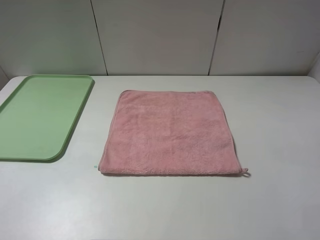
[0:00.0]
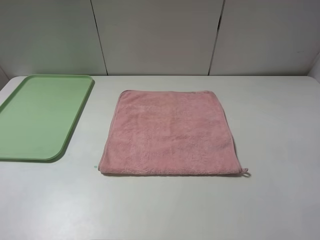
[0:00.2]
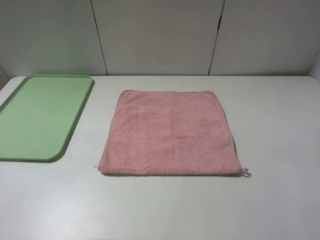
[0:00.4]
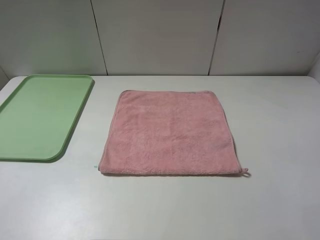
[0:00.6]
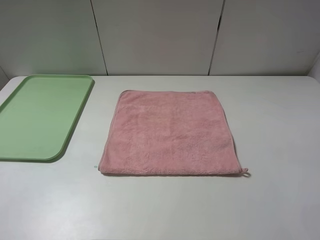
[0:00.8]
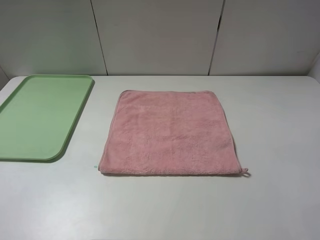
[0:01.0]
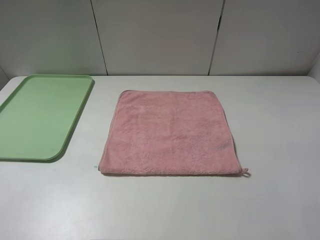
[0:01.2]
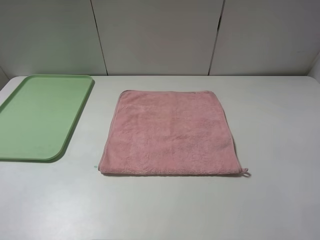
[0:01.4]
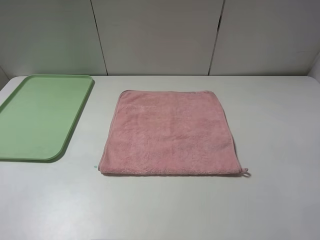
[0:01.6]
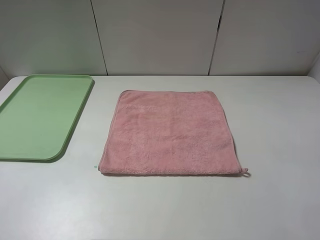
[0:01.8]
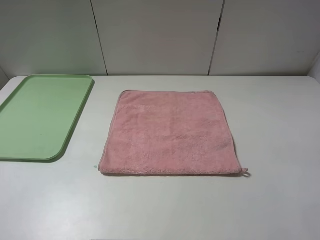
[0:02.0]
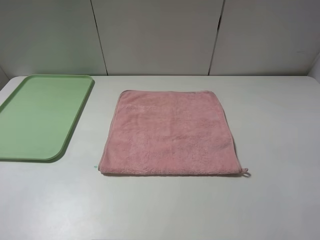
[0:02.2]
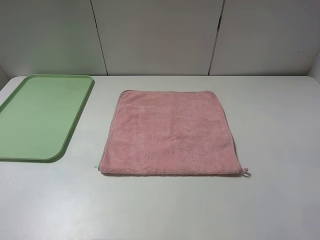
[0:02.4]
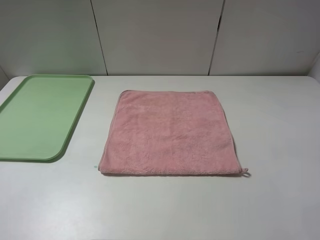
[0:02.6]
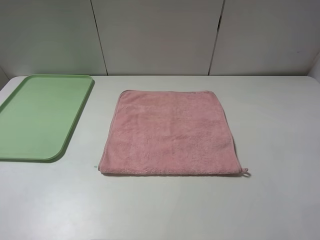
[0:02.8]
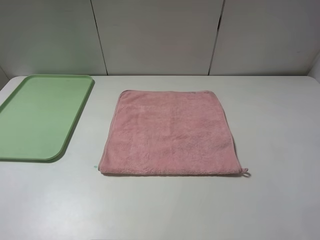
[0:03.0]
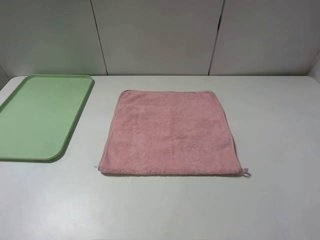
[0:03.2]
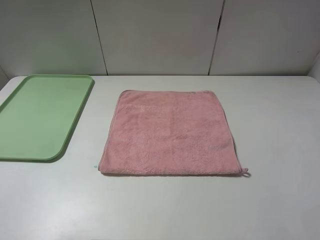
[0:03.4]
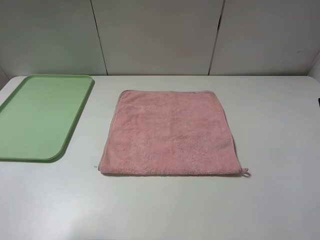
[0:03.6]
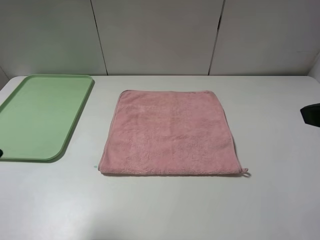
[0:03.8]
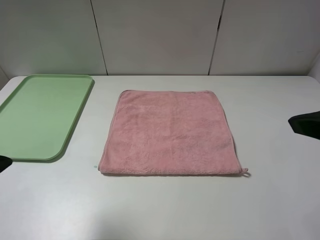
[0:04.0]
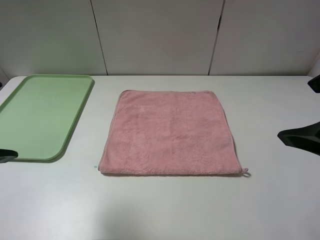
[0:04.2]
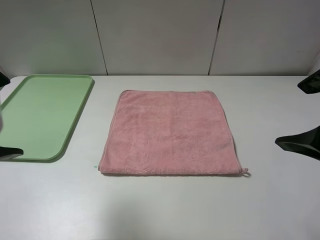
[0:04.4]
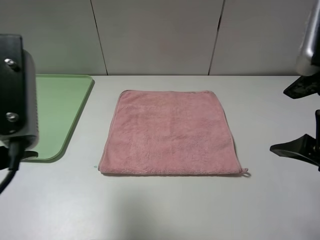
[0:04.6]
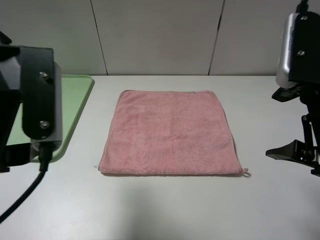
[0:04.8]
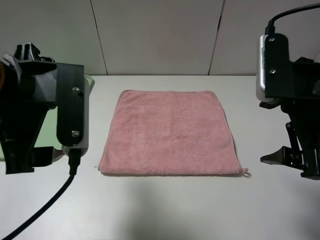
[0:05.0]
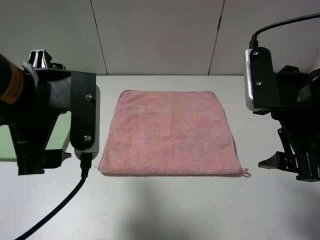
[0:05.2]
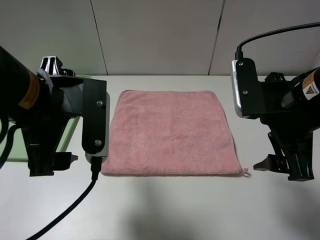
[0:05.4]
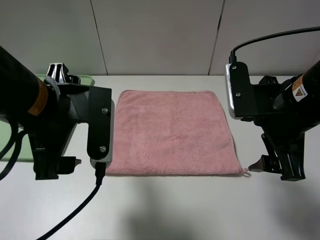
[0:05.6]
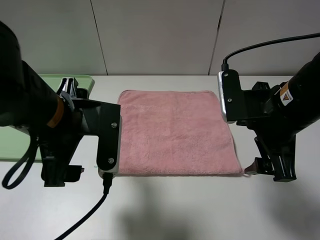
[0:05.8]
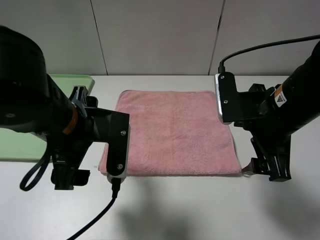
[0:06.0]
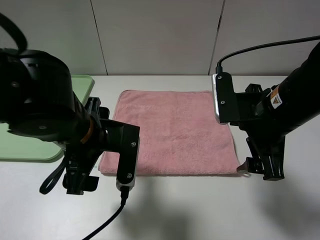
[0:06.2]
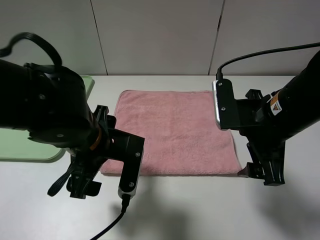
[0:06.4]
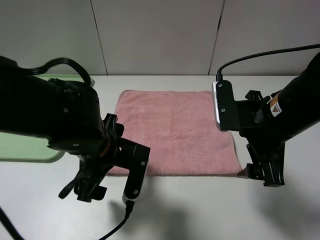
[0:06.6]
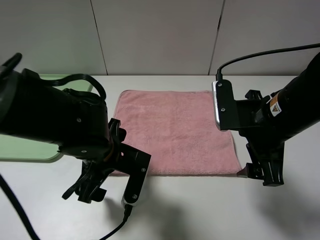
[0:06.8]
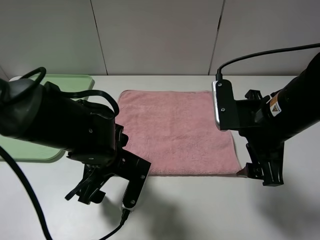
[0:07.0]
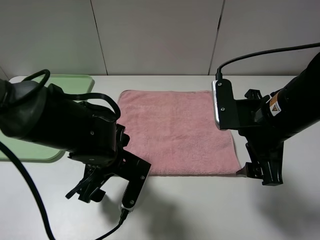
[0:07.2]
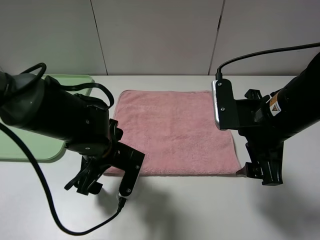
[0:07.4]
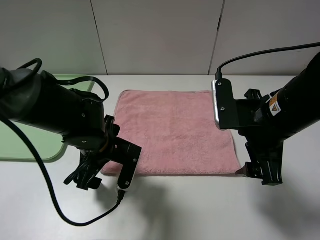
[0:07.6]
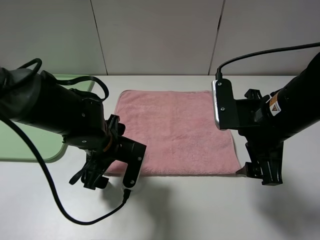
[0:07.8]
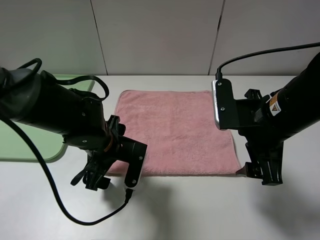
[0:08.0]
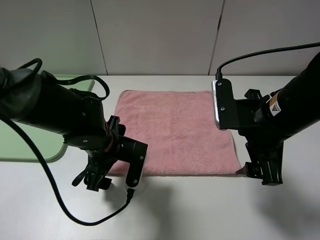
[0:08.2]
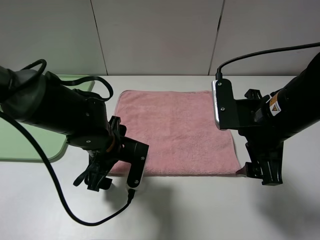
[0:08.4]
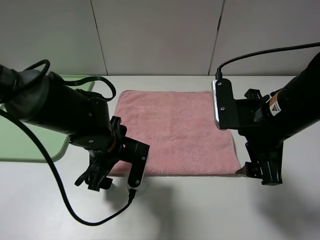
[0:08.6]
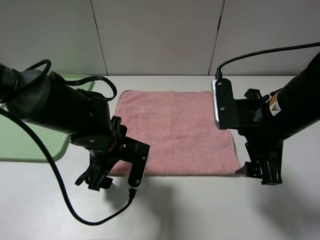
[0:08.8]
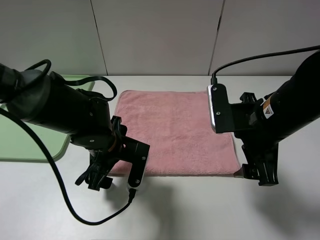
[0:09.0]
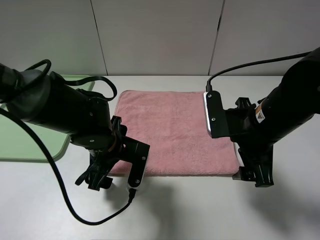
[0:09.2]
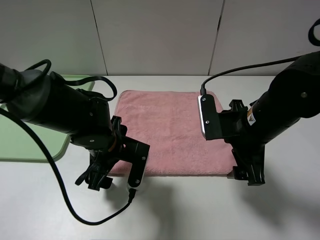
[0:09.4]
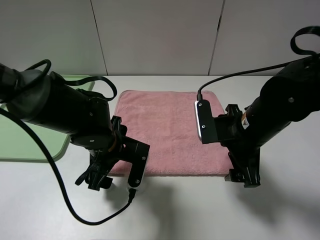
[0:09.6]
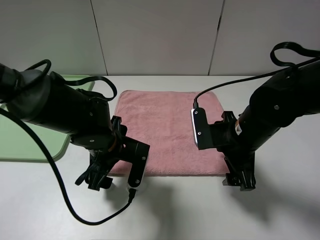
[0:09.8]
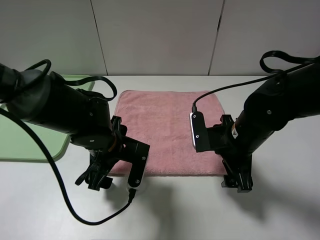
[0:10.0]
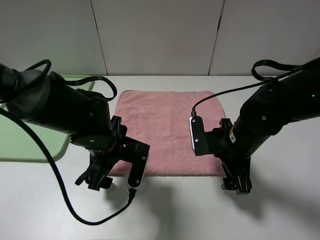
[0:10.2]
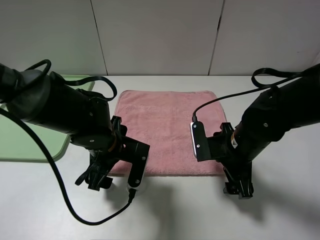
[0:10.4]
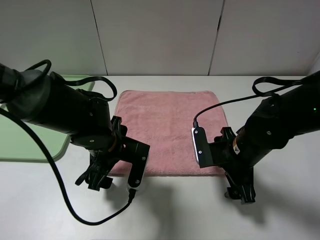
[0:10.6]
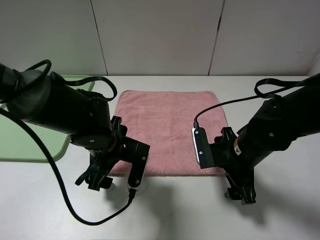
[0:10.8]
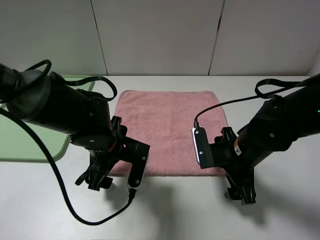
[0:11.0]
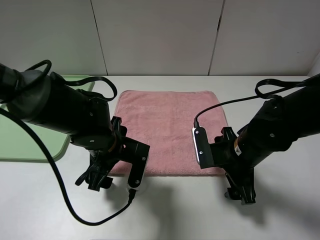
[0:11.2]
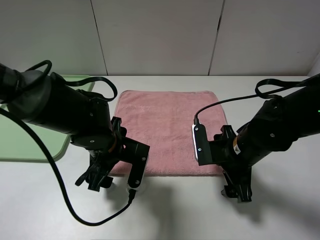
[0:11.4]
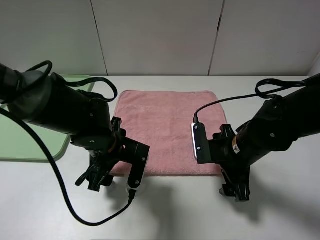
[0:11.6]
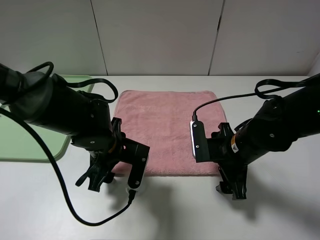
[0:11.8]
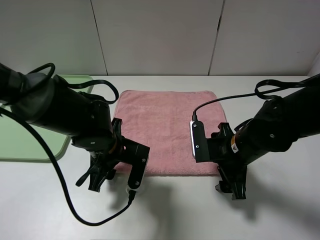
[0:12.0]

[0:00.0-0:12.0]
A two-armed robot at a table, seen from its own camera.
0:00.0 to 0:01.6: Both grippers stay put.
0:03.0 to 0:04.4: The right gripper is displaced to the left and forward by some 10 cm. Meanwhile the left gripper heads to the right and forward, covering roughly 15 cm.
0:04.4 to 0:06.0: The left gripper heads downward, to the right and forward, covering approximately 15 cm, while the right gripper goes about 10 cm downward, forward and to the left.
0:06.0 to 0:07.6: The left gripper is displaced downward by some 10 cm.
0:07.6 to 0:09.0: The grippers stay close to where they were, moving slightly.
0:09.0 to 0:10.4: The right gripper heads downward, covering about 10 cm.
0:10.4 to 0:12.0: The left gripper closes.

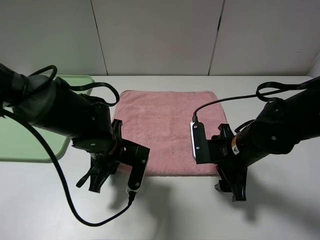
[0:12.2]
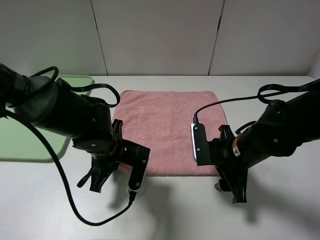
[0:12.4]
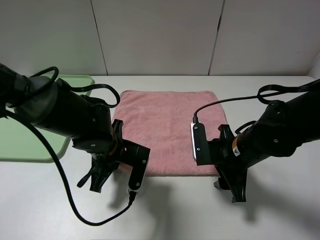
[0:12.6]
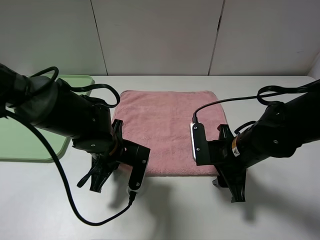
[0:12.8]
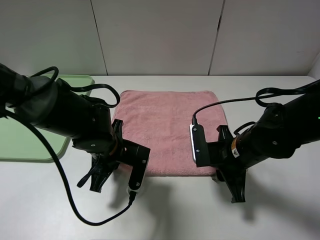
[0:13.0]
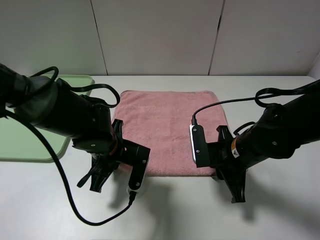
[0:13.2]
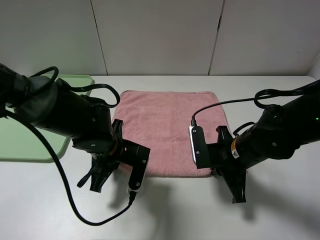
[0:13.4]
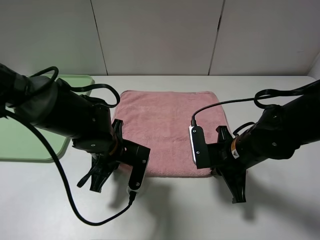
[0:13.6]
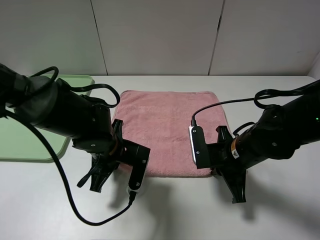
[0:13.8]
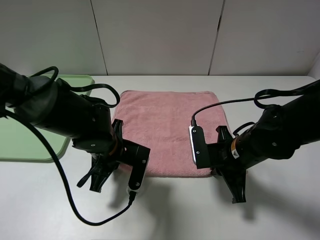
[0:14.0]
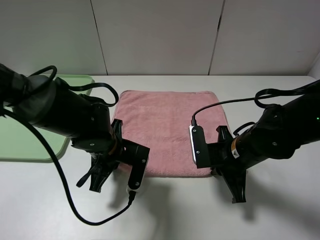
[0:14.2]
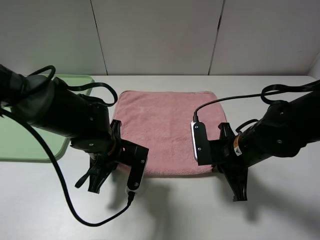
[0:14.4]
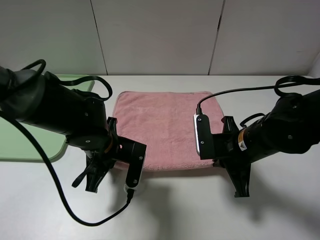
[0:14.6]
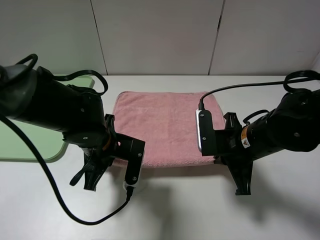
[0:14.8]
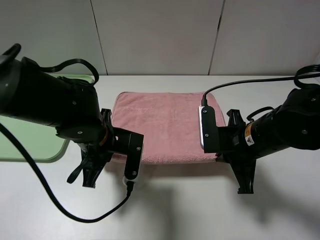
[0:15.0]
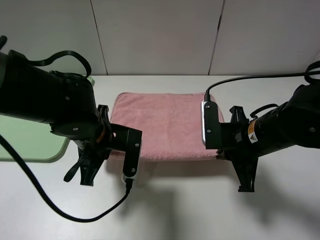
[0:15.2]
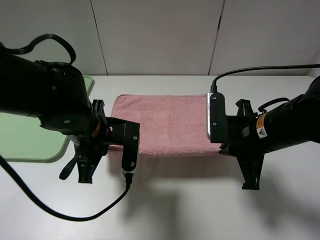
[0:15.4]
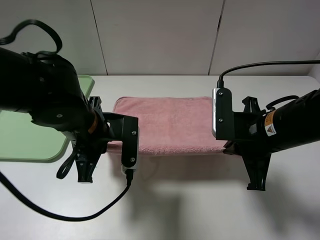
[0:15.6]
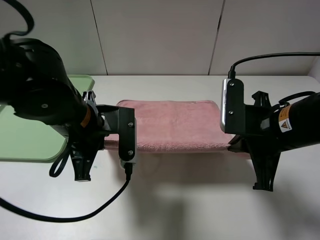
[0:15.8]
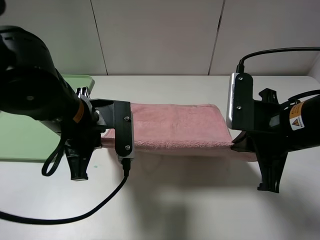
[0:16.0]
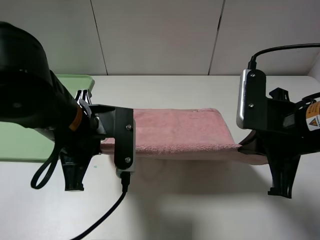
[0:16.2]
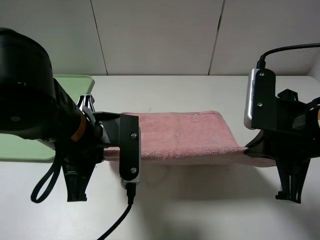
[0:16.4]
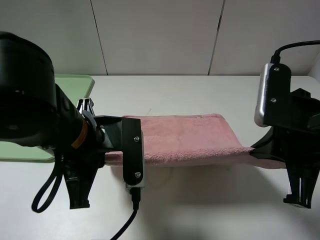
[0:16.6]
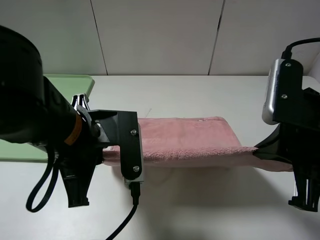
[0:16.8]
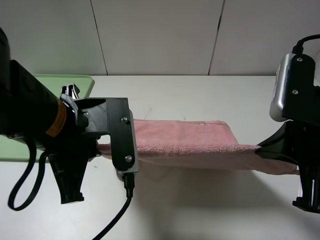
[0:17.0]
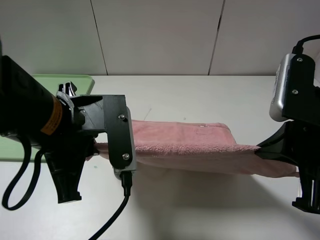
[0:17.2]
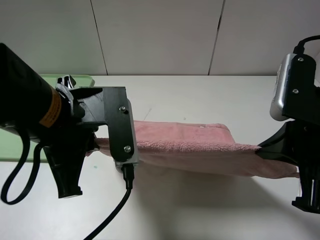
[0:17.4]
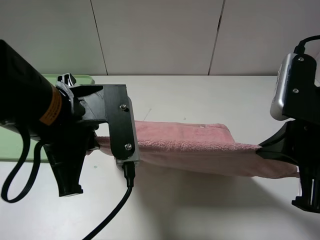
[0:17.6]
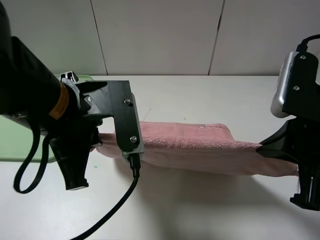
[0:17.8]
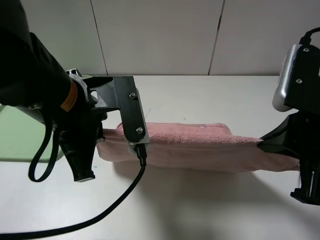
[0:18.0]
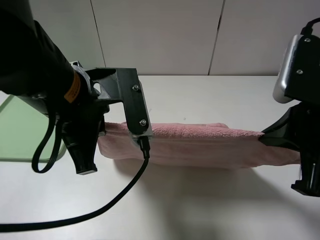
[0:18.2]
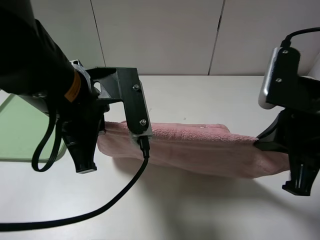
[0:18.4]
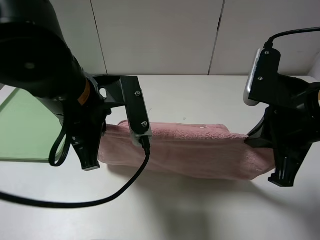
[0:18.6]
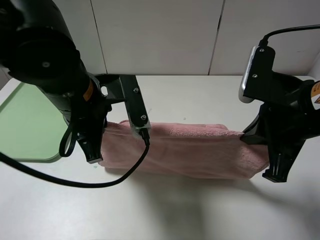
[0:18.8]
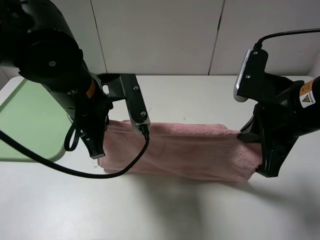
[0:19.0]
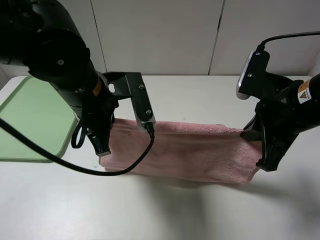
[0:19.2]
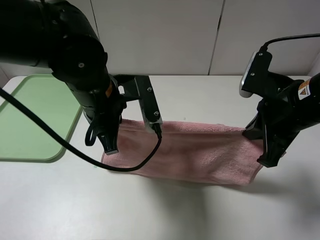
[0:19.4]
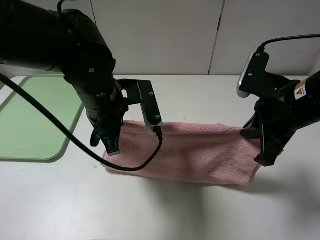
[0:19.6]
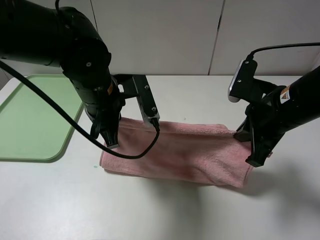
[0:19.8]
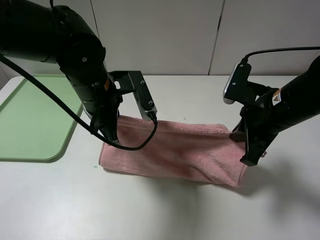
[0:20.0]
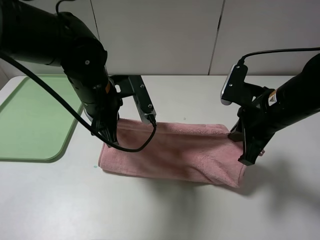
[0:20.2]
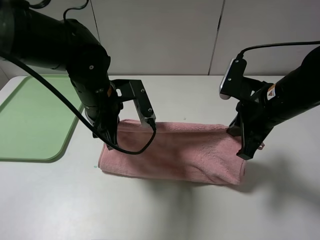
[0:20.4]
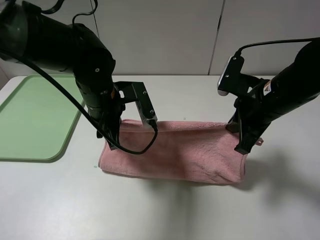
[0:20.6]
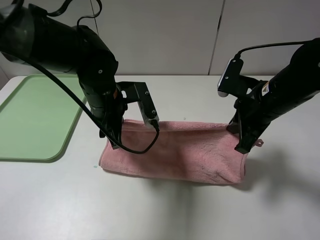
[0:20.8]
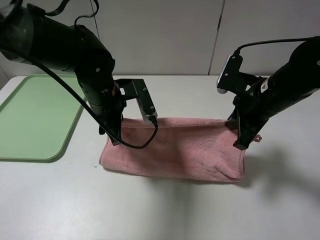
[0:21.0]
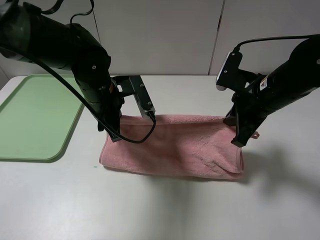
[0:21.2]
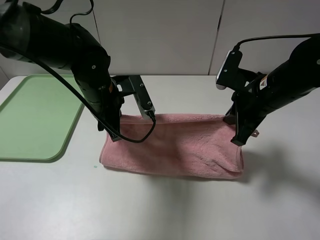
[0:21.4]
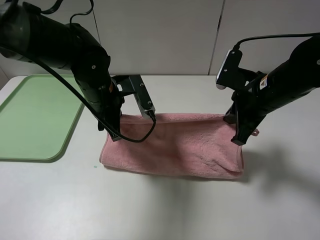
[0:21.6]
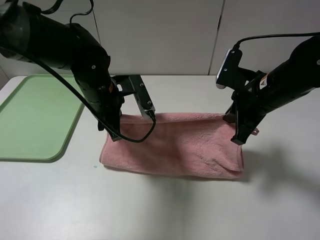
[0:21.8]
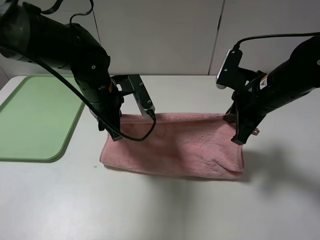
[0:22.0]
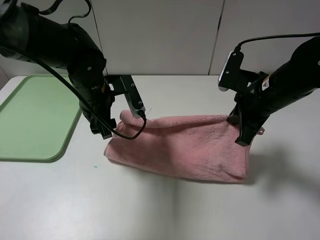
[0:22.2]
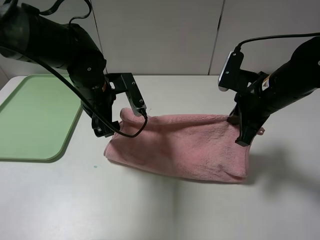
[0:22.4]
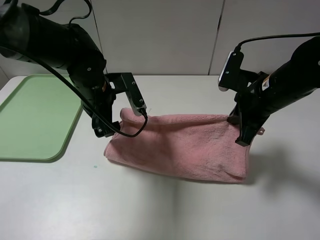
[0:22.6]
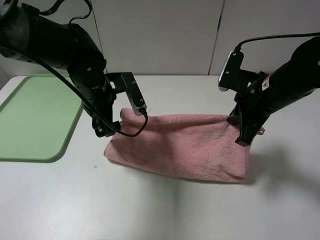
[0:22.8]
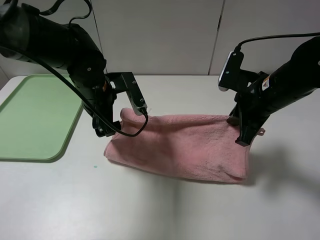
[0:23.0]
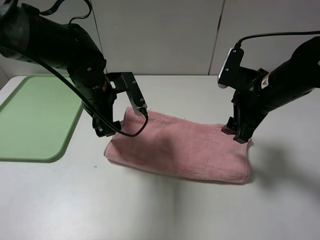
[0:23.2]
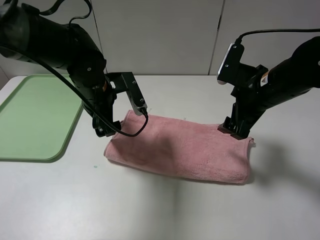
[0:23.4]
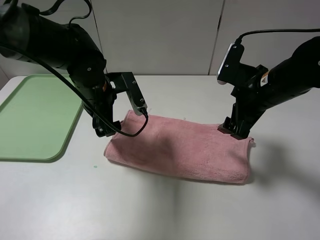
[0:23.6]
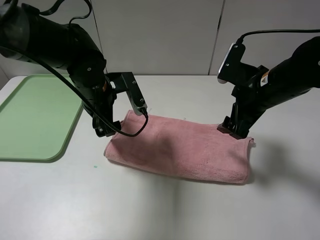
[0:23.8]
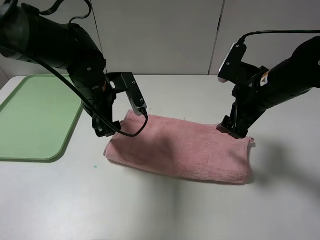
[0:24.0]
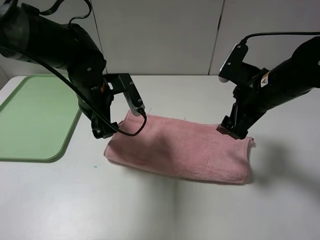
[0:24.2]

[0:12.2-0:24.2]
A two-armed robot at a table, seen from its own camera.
Step, 0:12.2 to 0:23.4: Fold the pink towel upwards.
0:12.2 to 0:13.8: The right gripper closes up.
0:13.8 to 0:15.2: Both grippers move upward, approximately 5 cm.
0:15.2 to 0:16.6: Both grippers move upward and backward, roughly 10 cm.
0:16.6 to 0:18.2: The left gripper travels upward by roughly 5 cm.
0:18.2 to 0:19.8: Both grippers travel together forward and downward, approximately 10 cm.
0:19.8 to 0:21.2: The left gripper shifts by approximately 5 cm.
0:21.2 to 0:22.6: The left gripper opens up.
0:22.6 to 0:24.2: The right gripper opens its fingers.
